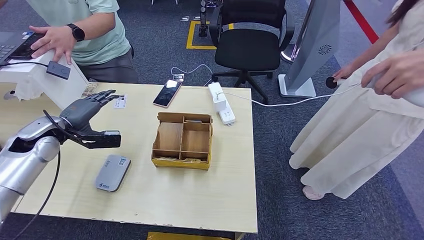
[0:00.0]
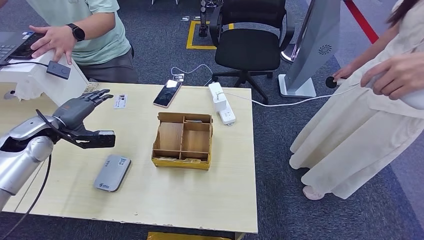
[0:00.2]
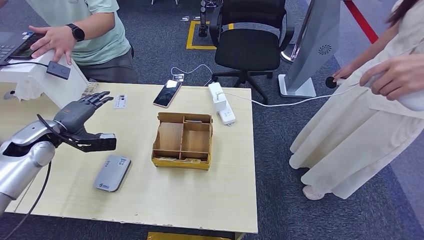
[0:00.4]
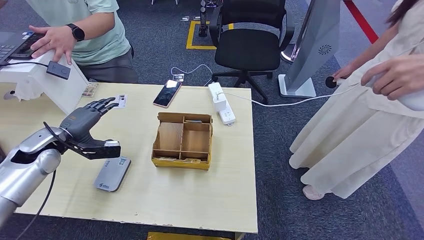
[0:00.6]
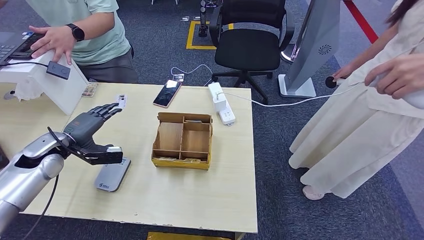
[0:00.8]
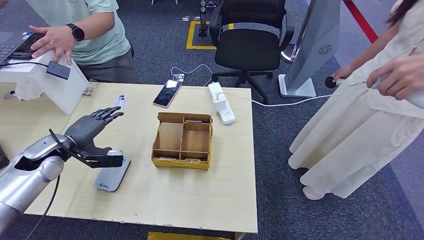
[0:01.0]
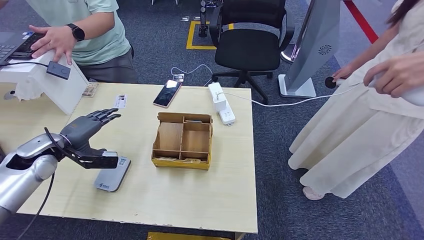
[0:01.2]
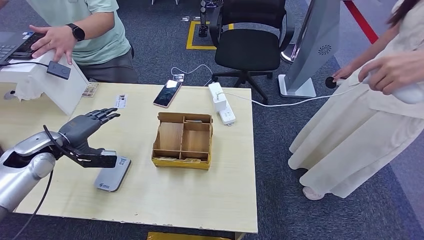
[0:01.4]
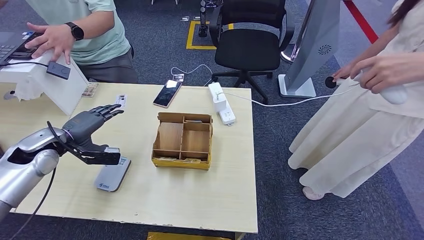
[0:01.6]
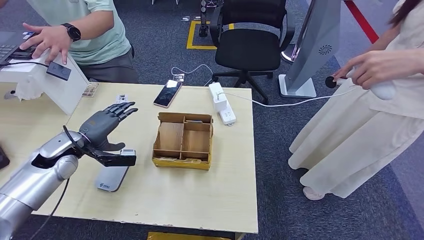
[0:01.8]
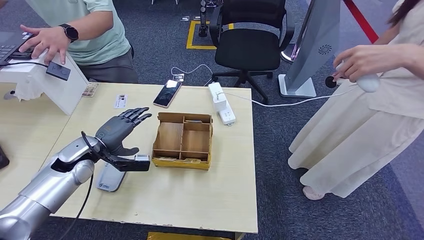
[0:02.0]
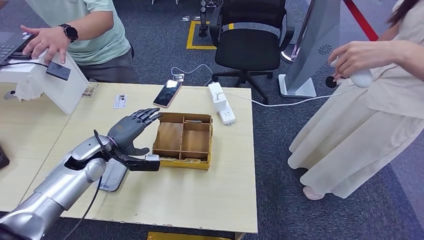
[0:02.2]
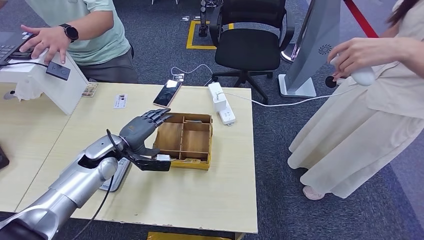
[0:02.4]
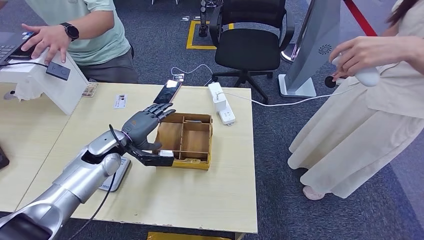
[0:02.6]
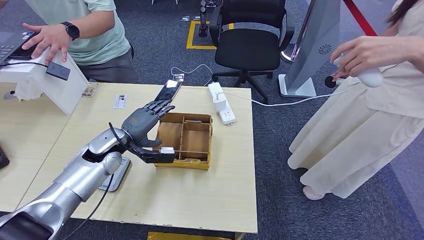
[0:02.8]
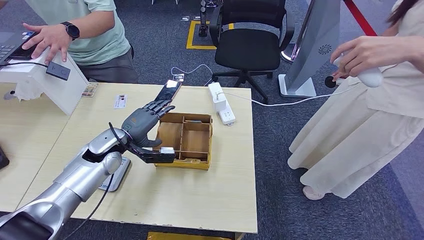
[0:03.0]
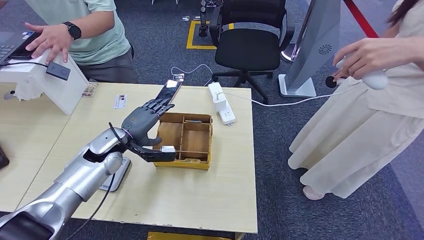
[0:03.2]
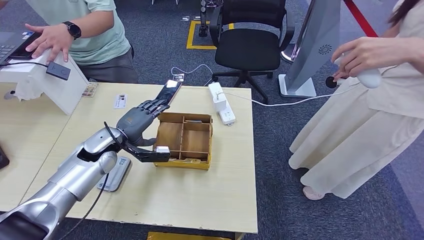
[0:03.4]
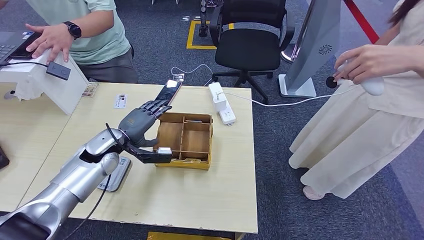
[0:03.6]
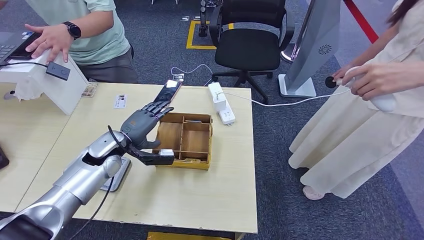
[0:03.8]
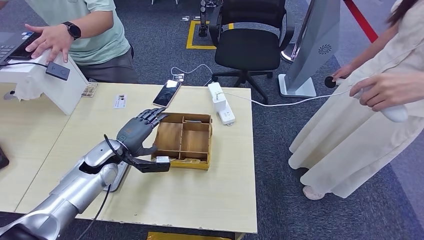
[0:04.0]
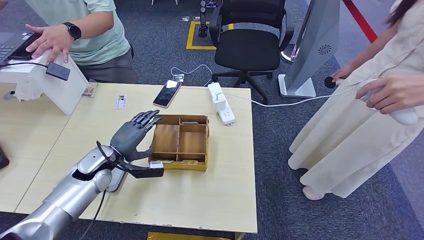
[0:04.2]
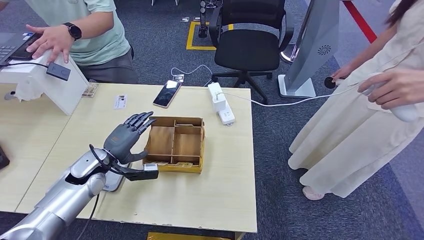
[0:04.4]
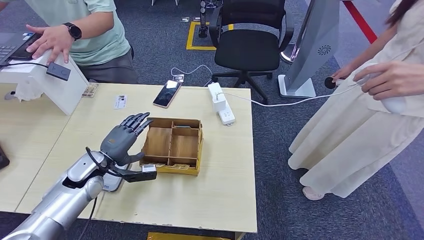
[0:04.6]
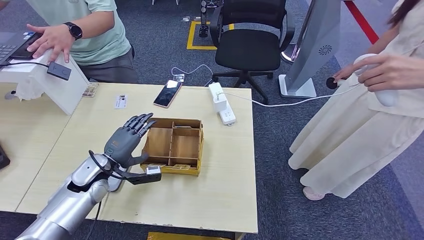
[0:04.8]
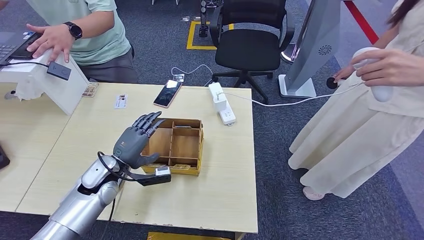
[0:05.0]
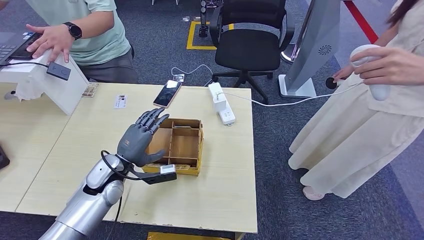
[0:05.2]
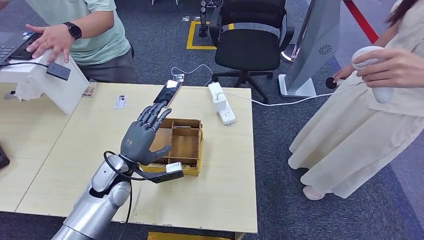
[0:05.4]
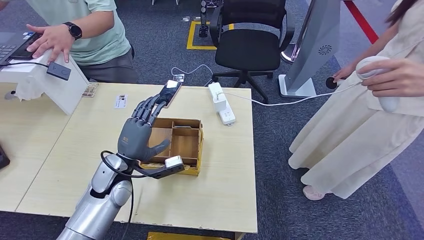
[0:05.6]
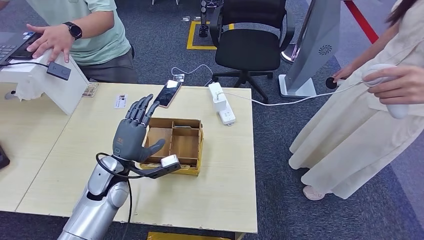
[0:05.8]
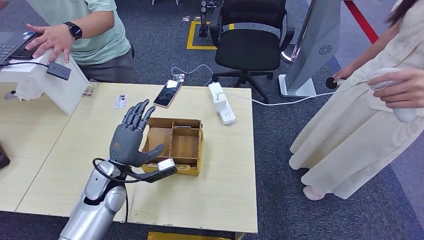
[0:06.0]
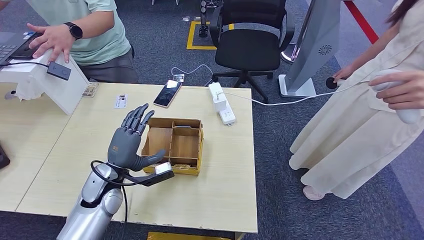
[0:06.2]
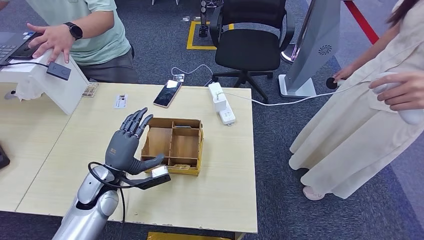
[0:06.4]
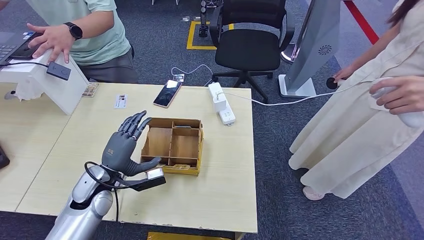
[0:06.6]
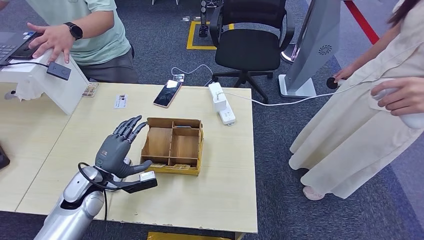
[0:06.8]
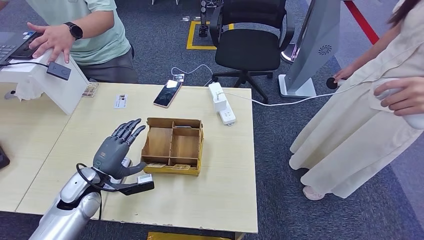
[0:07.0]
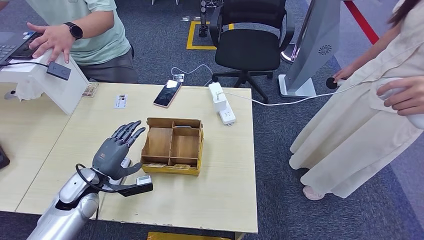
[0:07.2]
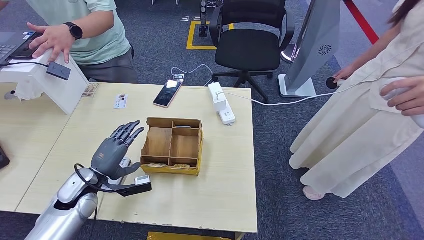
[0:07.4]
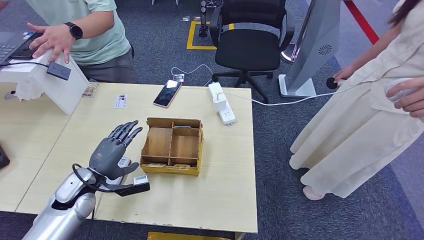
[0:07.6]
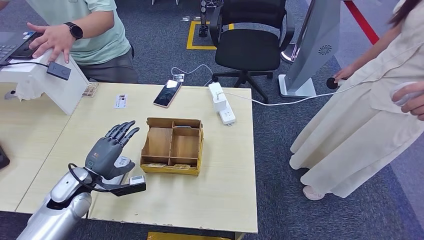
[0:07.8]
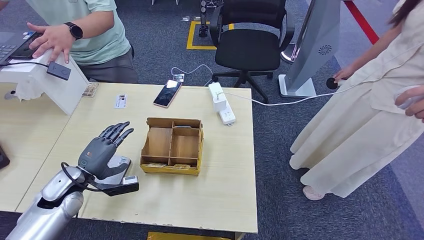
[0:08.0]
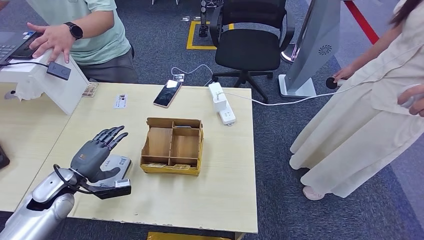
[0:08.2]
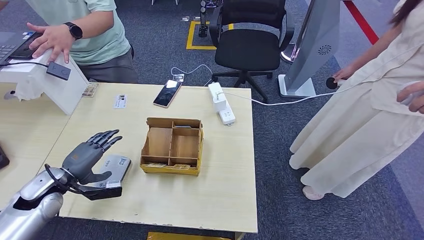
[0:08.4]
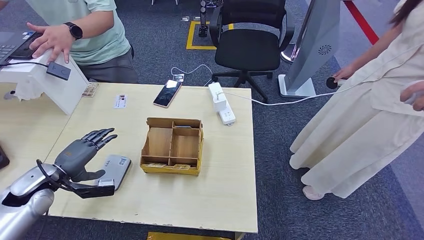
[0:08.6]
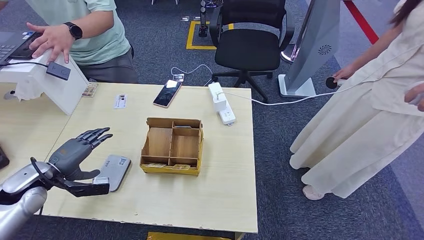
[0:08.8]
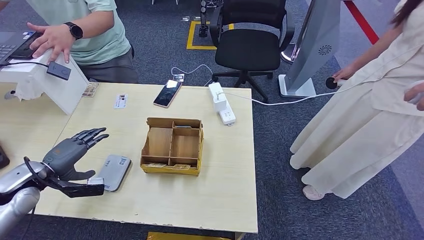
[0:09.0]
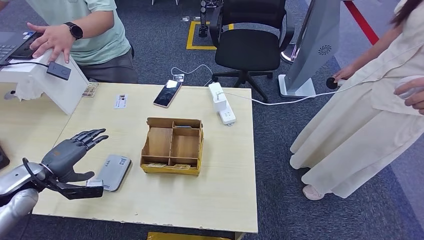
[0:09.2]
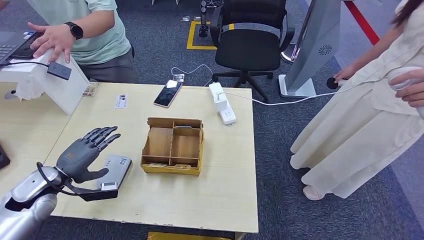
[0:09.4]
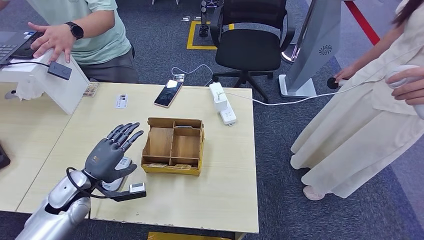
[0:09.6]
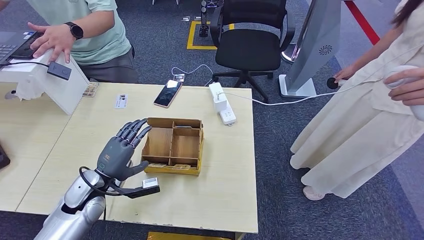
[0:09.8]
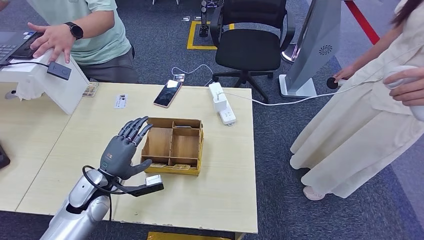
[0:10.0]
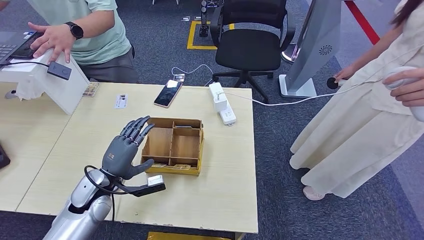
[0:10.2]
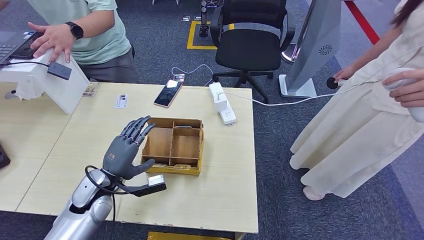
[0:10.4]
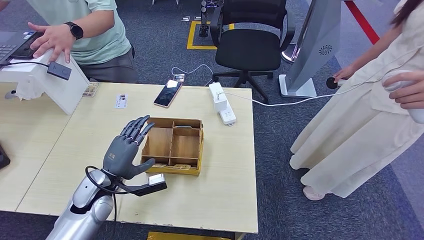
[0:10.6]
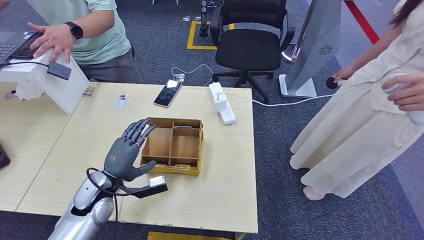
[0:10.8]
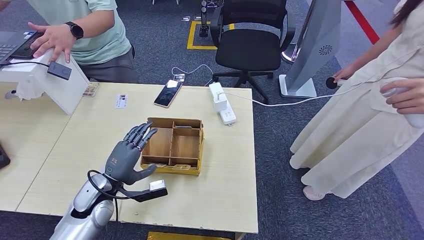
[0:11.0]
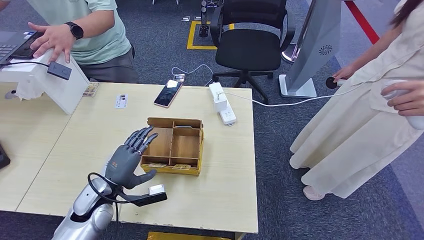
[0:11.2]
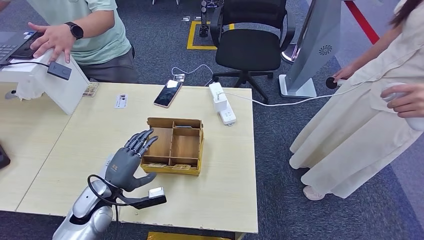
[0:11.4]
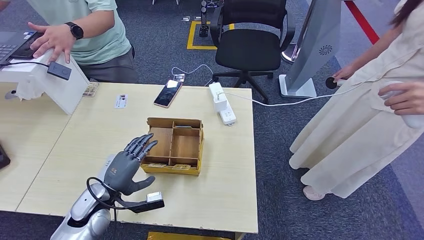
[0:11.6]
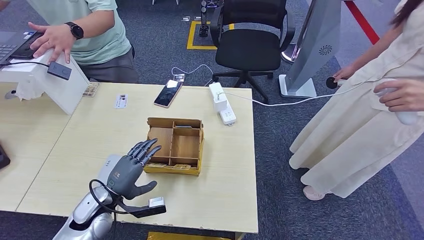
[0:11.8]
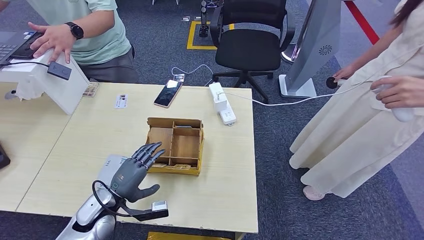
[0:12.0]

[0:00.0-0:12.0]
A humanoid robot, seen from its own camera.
0:00.0 to 0:01.6: The hands stay close to where they were, moving slightly.
0:01.6 to 0:03.0: The left hand goes approximately 15 cm to the right.
0:03.0 to 0:04.4: The left hand ends up some 10 cm from where it was.
0:04.4 to 0:06.0: The left hand moves to the right, some 5 cm.
0:06.0 to 0:07.6: The left hand travels to the left by some 10 cm.
0:07.6 to 0:09.0: The left hand travels to the left by approximately 10 cm.
0:09.0 to 0:10.4: The left hand goes roughly 15 cm to the right.
0:10.4 to 0:12.0: The left hand shifts by some 5 cm.

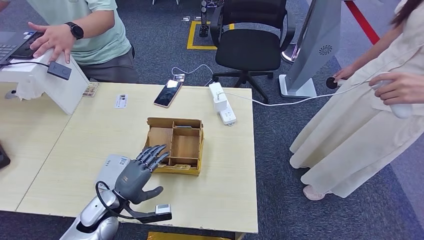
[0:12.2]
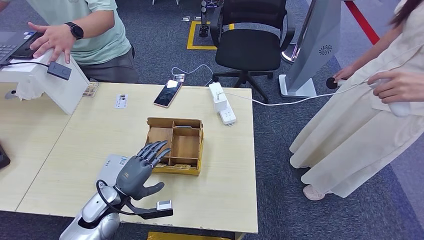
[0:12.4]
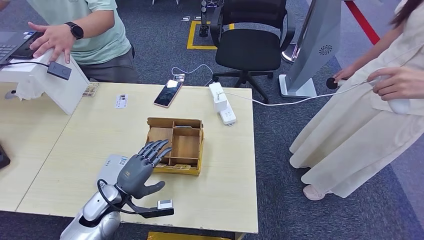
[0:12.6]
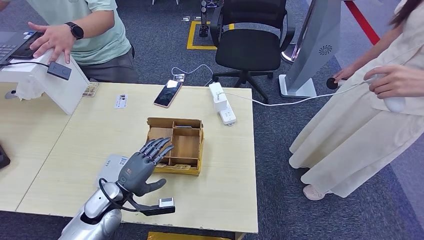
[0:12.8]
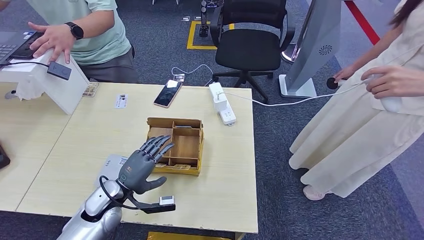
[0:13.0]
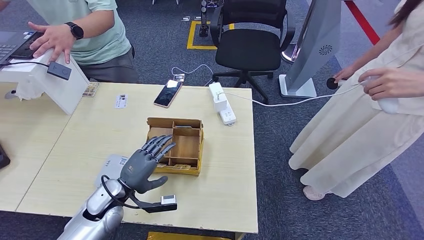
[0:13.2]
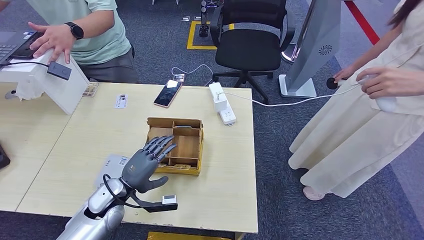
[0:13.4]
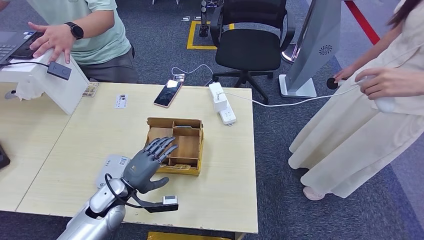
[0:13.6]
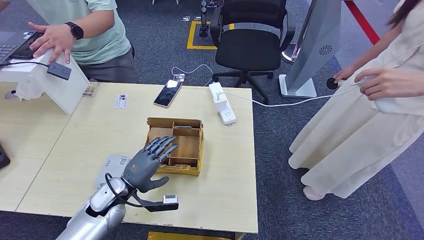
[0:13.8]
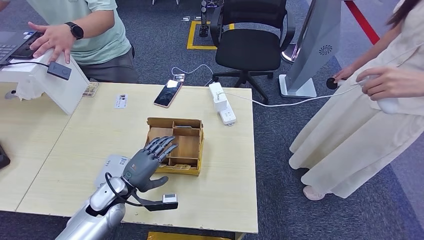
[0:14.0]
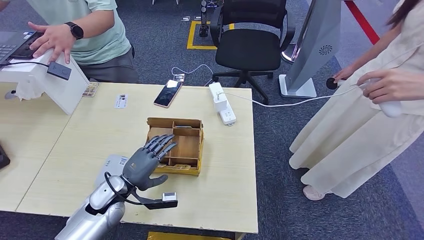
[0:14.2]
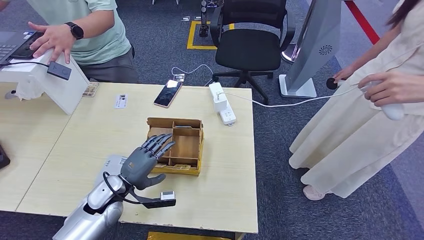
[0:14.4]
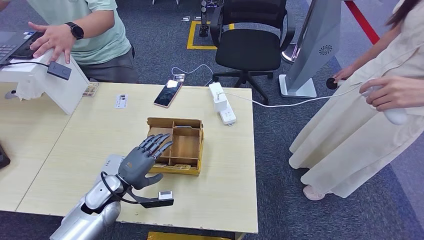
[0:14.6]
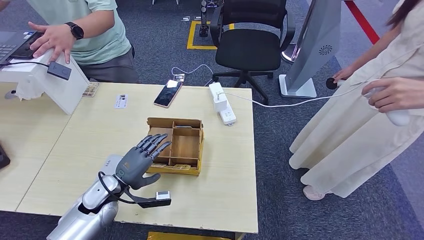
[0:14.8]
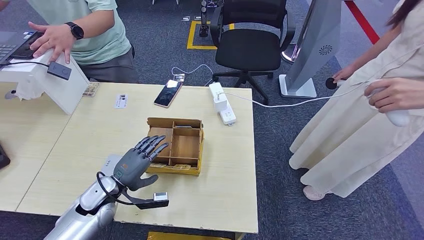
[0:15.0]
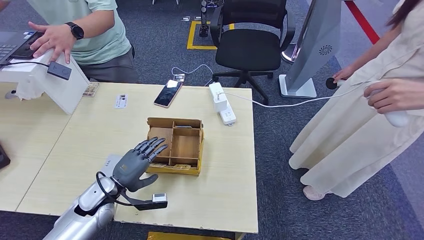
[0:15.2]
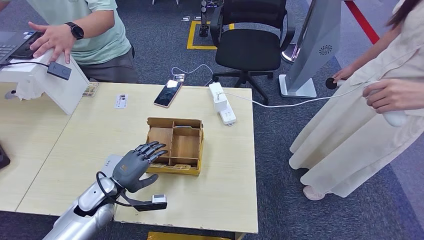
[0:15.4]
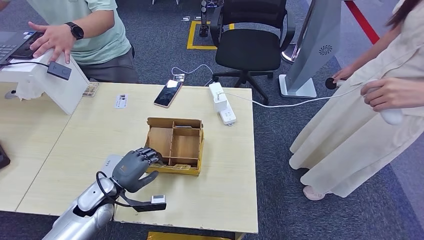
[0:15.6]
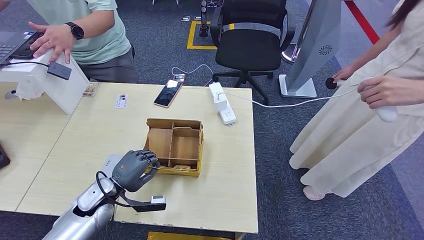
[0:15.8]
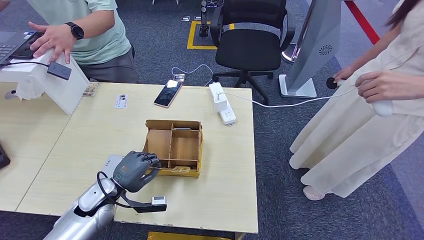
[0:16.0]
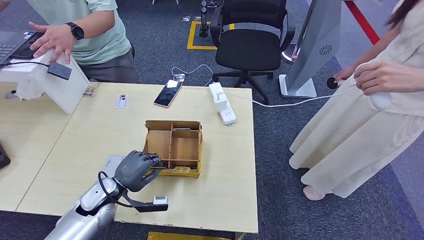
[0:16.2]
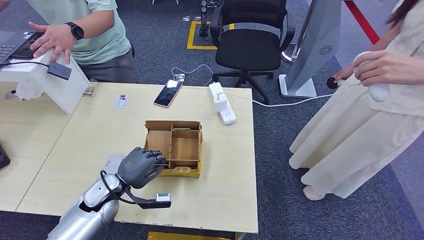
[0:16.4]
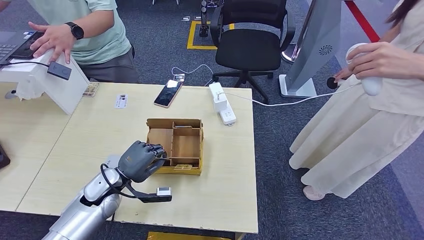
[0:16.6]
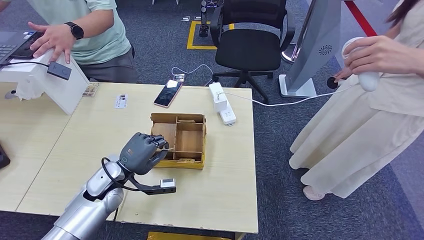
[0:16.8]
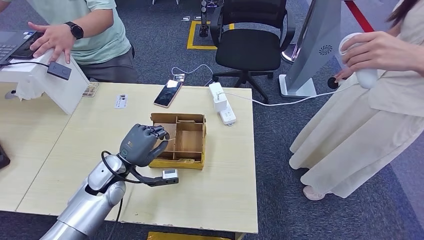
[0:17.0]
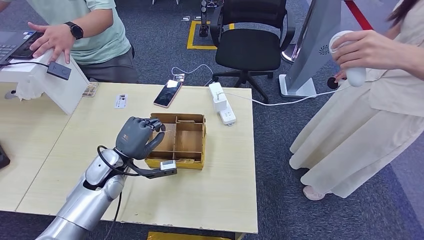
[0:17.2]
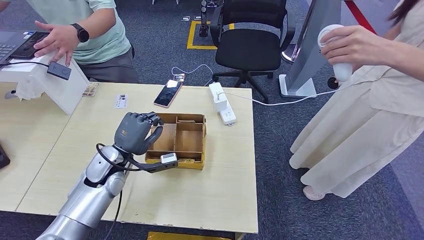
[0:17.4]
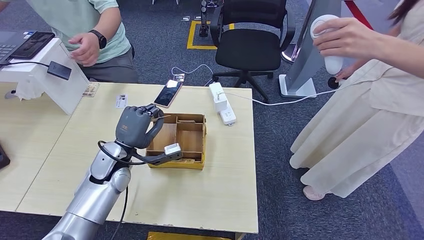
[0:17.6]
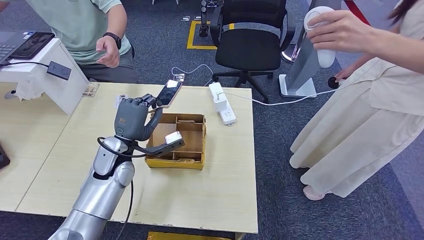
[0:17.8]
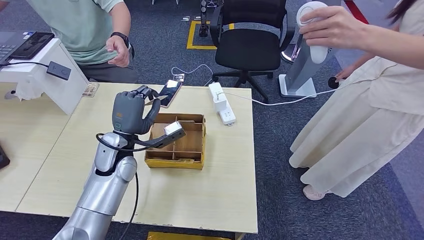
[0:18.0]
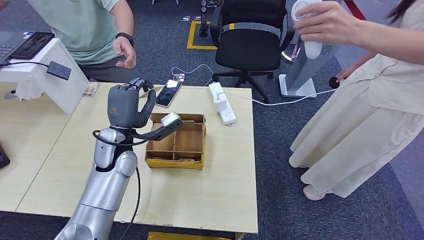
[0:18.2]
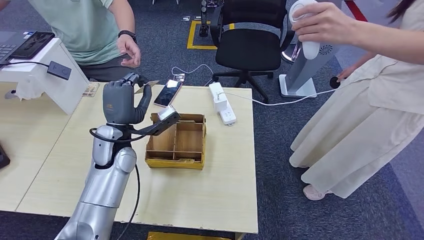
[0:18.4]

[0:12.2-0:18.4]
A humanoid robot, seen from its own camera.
Step, 0:12.2 to 0:16.2: Pick up the room key from the key card box.
Step, 0:16.6 to 0:18.4: Hand the room key to the person.
0:12.2 to 0:15.4: The hands stay close to where they were, moving slightly.
0:15.4 to 0:16.8: The left hand moves about 5 cm.
0:16.8 to 0:18.4: The left hand moves upward and forward, roughly 10 cm.
